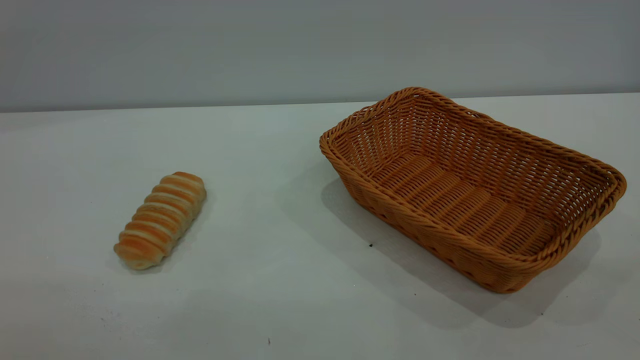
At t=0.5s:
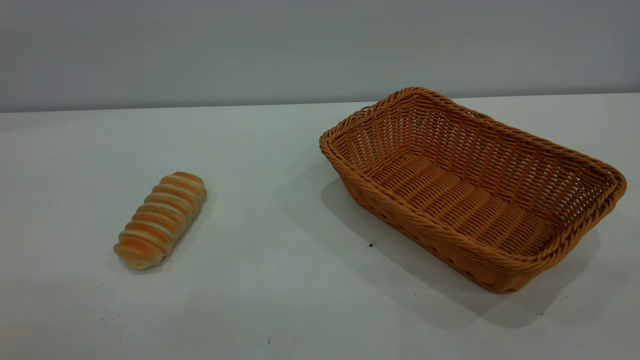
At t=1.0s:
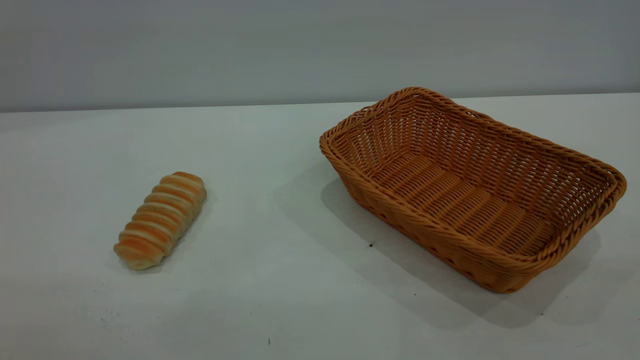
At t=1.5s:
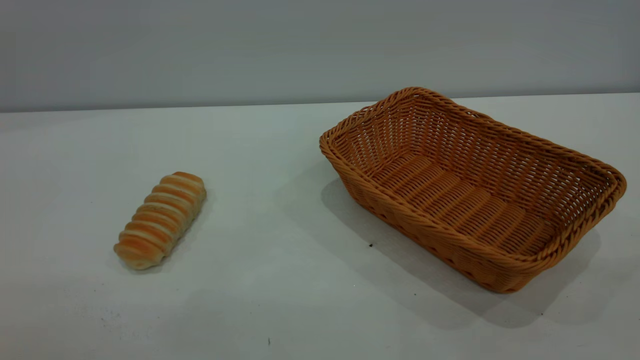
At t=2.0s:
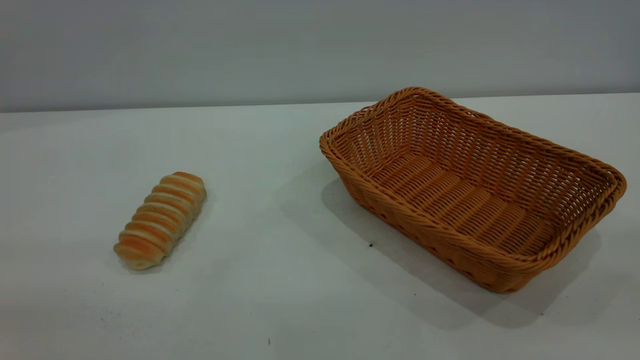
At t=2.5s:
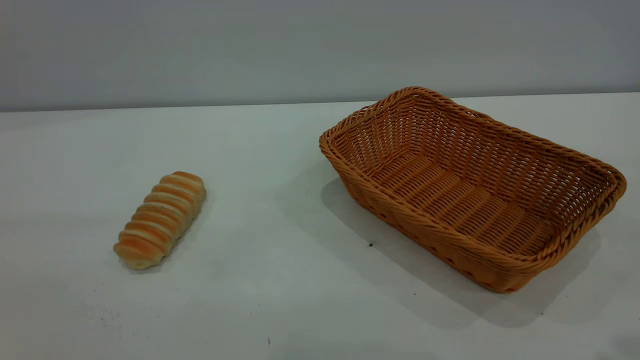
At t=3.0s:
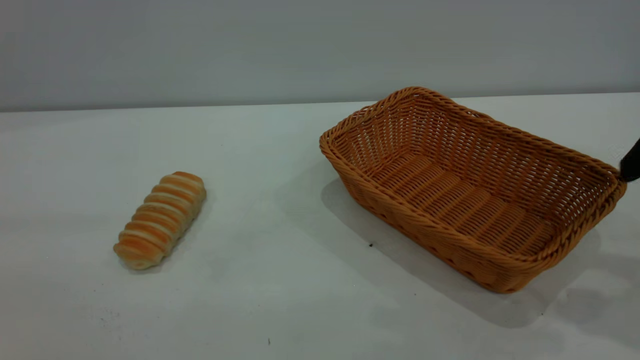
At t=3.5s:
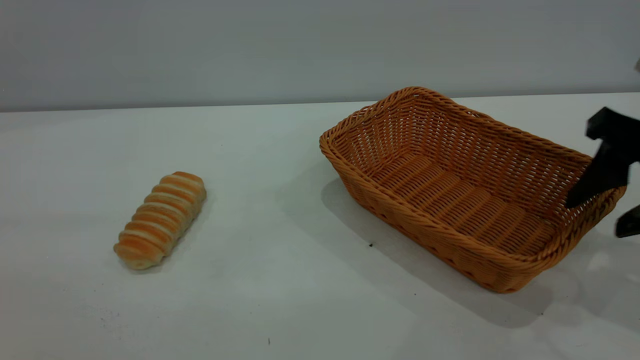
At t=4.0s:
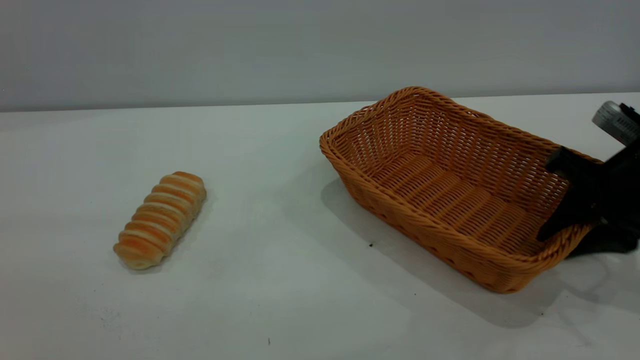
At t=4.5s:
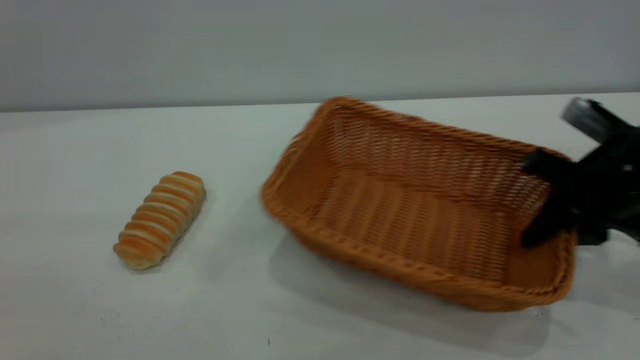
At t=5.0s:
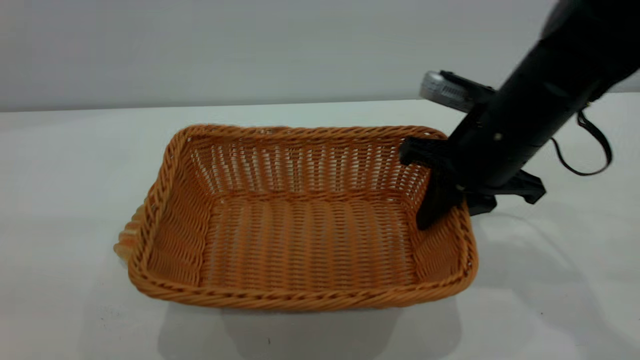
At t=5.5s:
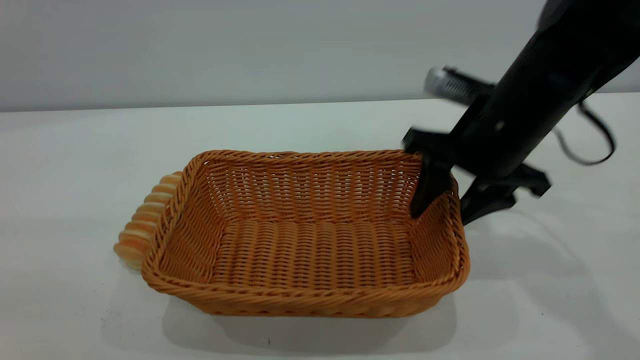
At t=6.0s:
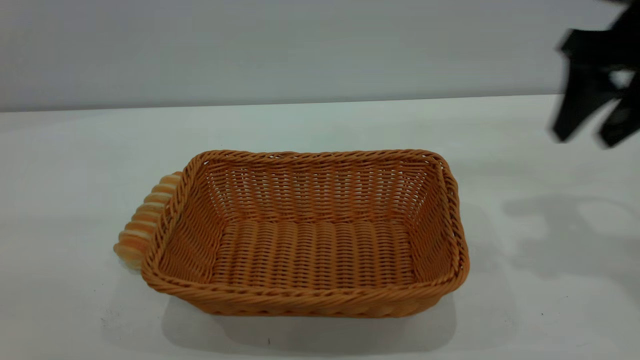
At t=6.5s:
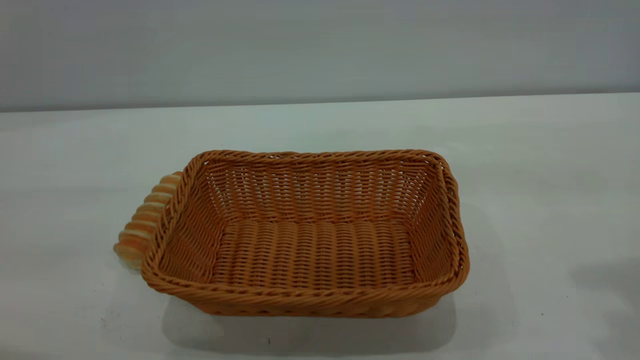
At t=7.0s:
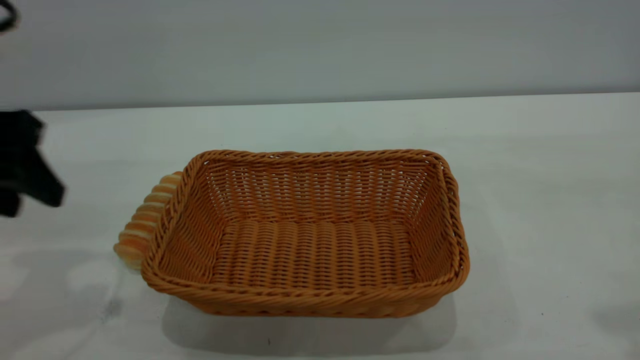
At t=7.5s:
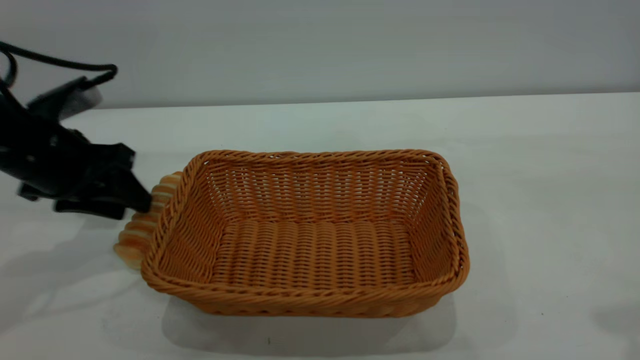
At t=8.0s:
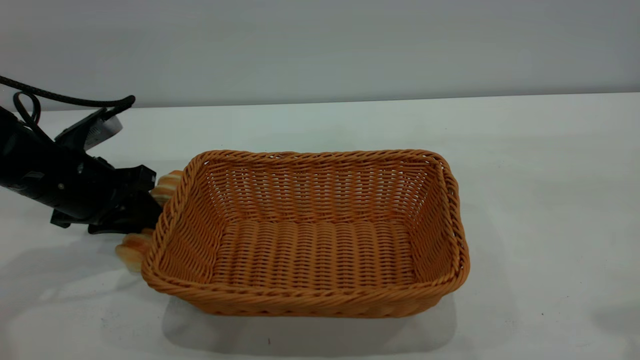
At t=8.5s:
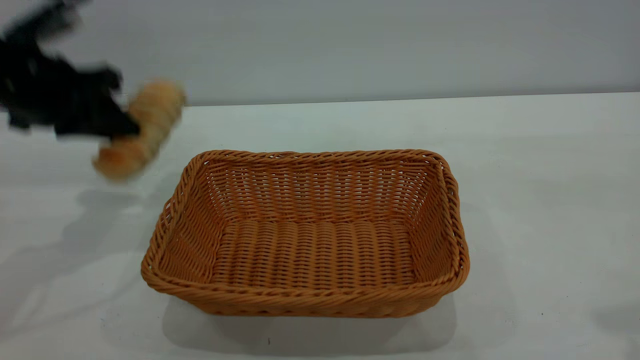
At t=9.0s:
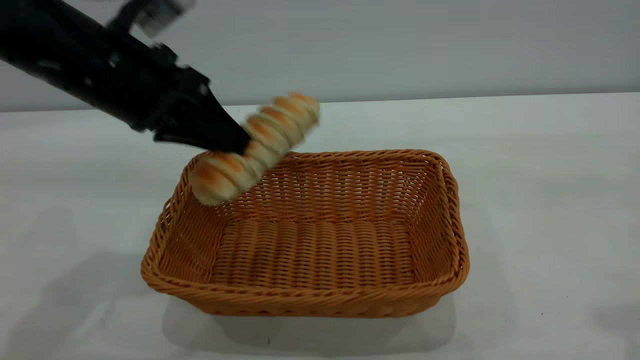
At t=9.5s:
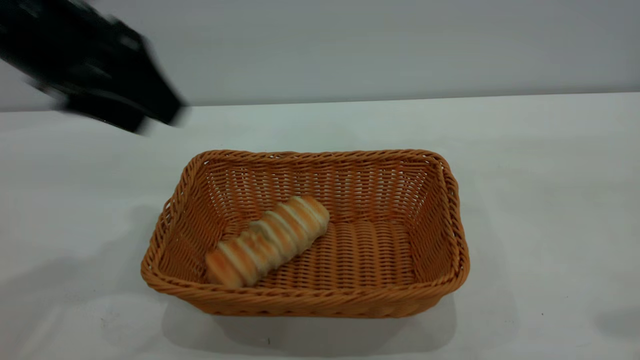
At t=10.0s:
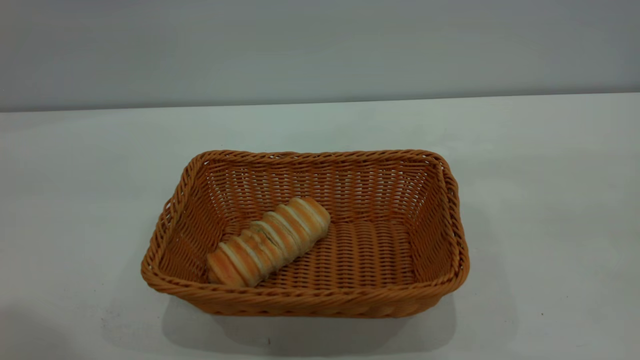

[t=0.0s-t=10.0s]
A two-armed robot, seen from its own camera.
Task of the whole recording: One hand grasps the yellow basket and places it in the middle of the table, while the other hand picks up the long bread and puts it into the yellow basket.
Step, t=0.0s to t=5.5s: Move the basket to the center of view.
Step, t=8.5s to t=9.0s: place the bread into the basket.
t=2.0s to t=4.0s: The right gripper moves forward and downward, some 40 cm, and closes its fingers.
t=4.0s to t=6.0s: The right gripper goes roughly 15 cm upward, and opens.
t=6.0s to t=8.0s: The left gripper heads forward and downward, covering some 40 cm, and closes. Meanwhile the right gripper heads backward and upward, covering some 20 cm.
t=8.0s to t=10.0s: The left gripper travels upward and backward by roughly 40 cm, and opens its fingers. The right gripper is displaced backward by about 5 cm.

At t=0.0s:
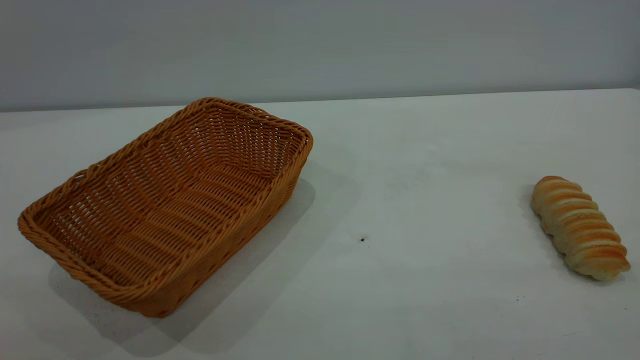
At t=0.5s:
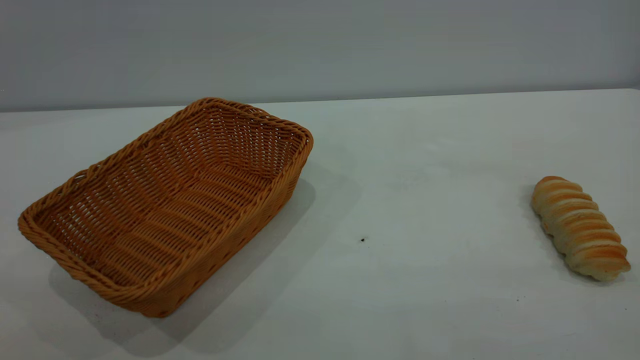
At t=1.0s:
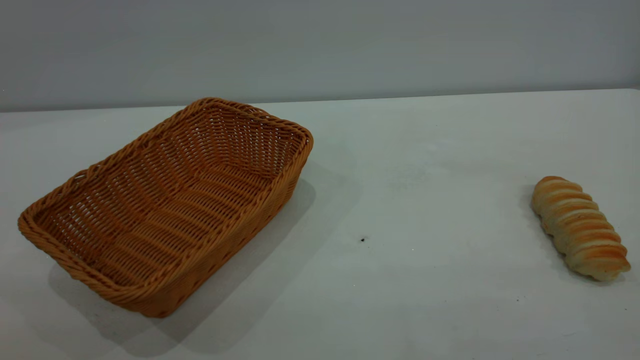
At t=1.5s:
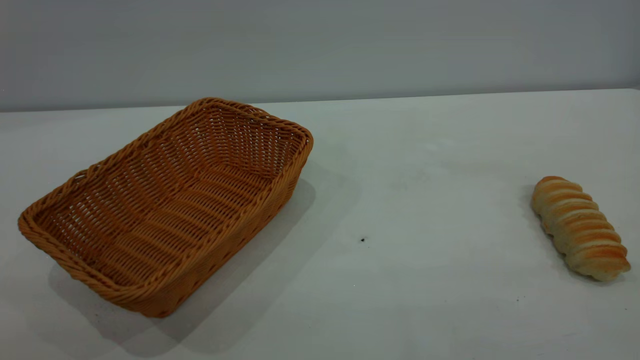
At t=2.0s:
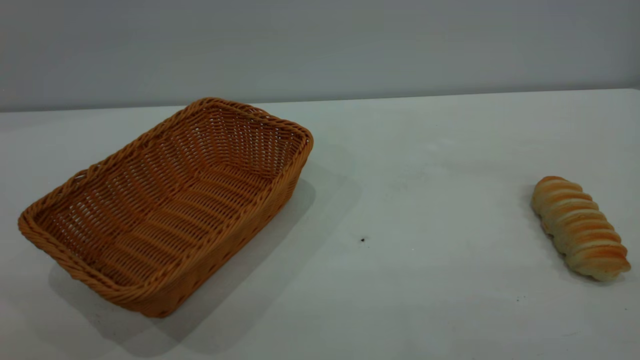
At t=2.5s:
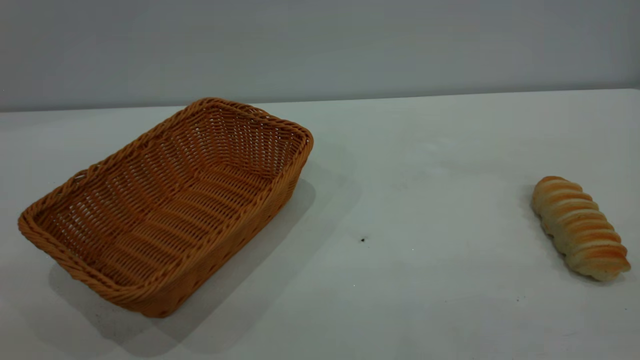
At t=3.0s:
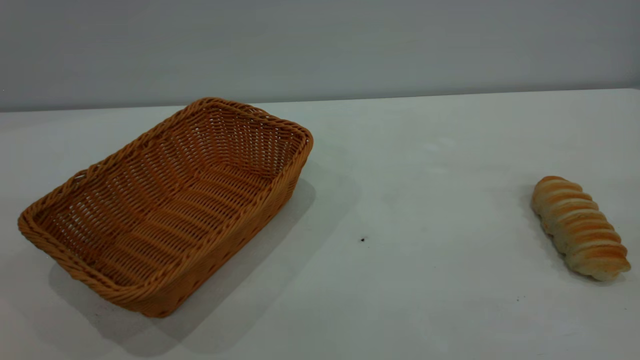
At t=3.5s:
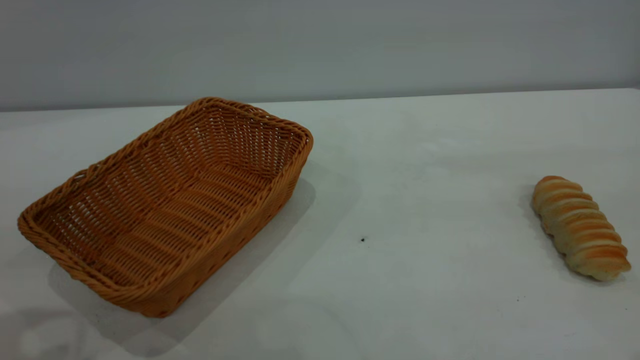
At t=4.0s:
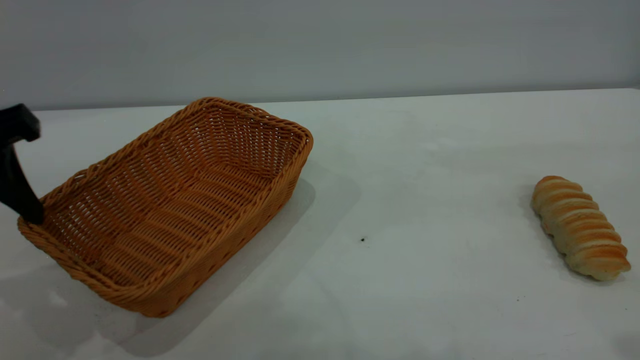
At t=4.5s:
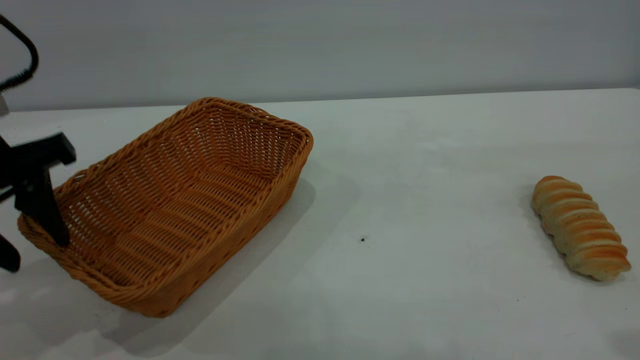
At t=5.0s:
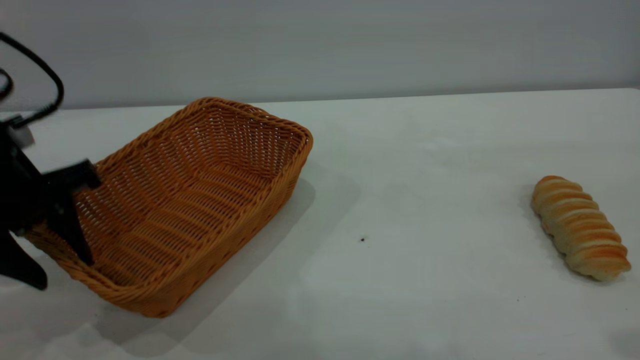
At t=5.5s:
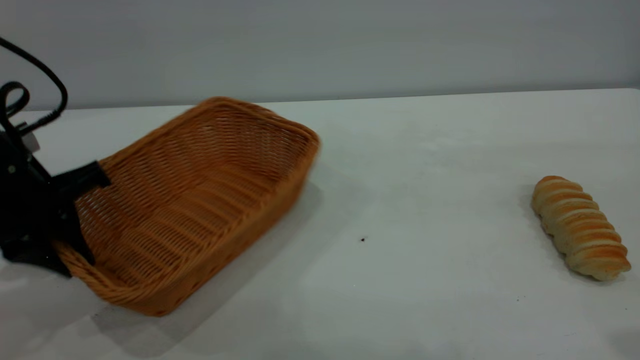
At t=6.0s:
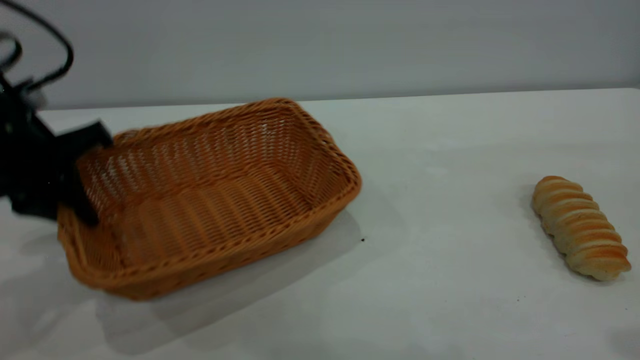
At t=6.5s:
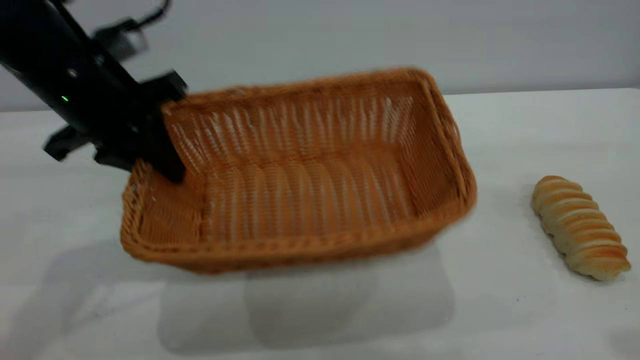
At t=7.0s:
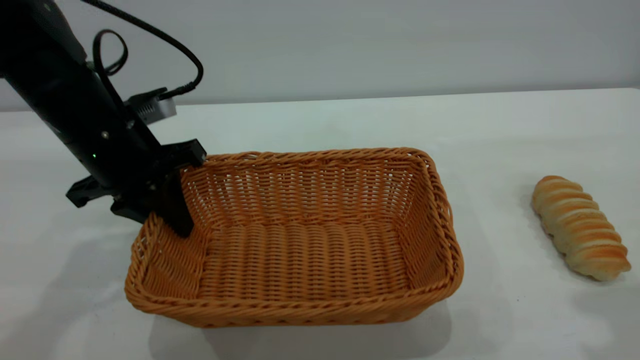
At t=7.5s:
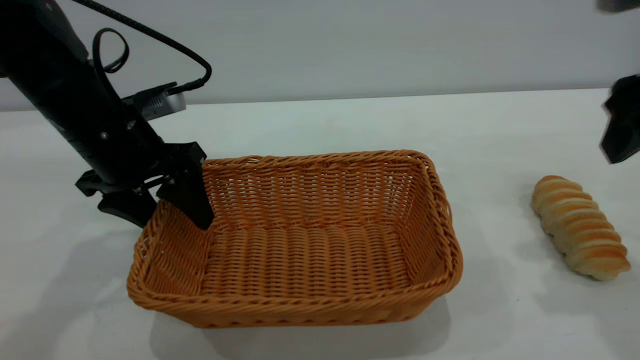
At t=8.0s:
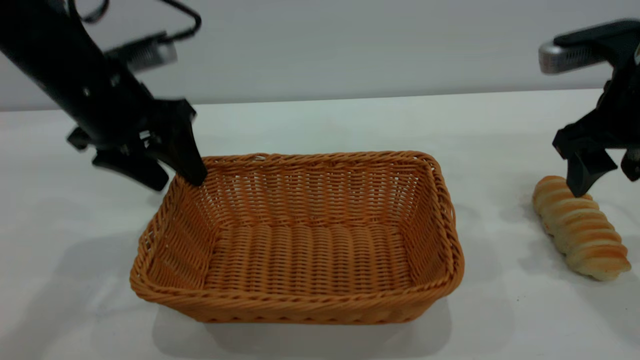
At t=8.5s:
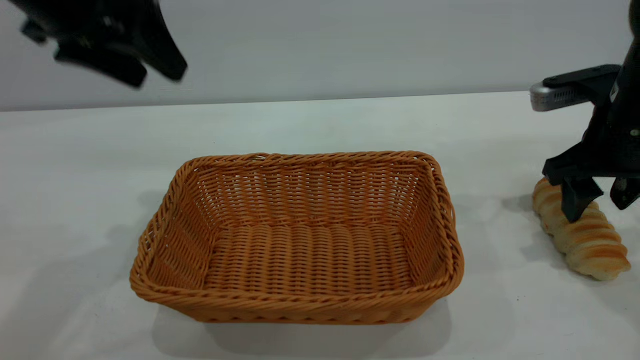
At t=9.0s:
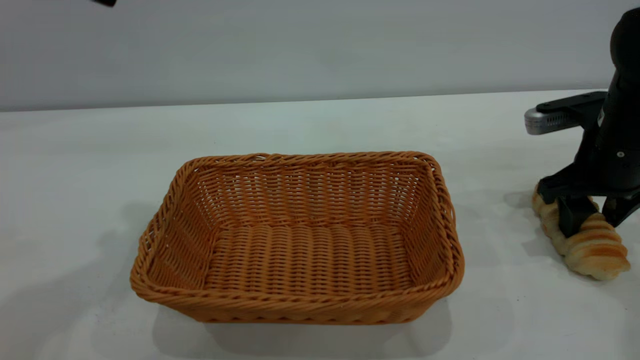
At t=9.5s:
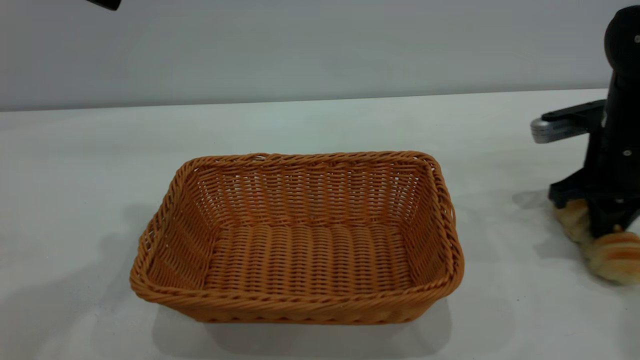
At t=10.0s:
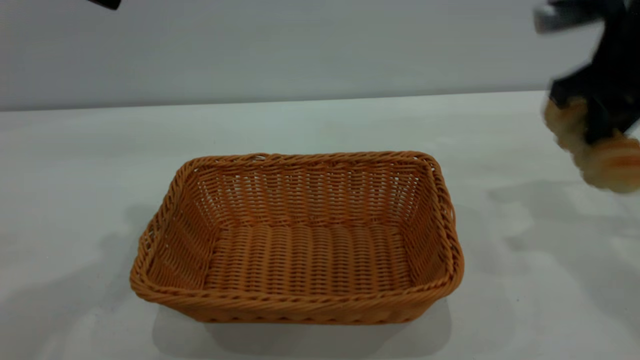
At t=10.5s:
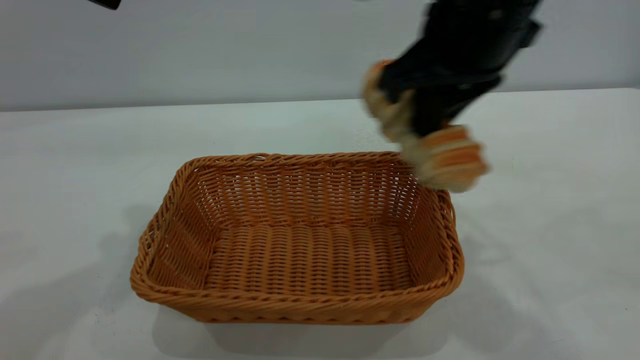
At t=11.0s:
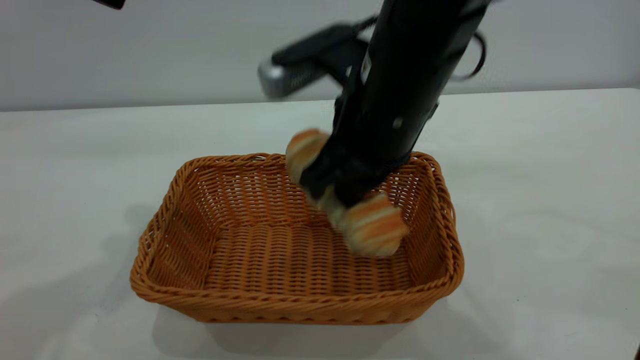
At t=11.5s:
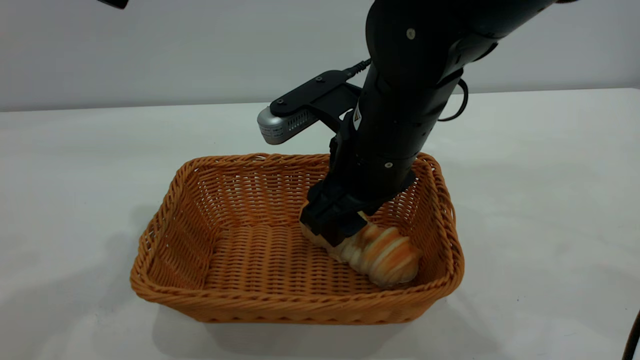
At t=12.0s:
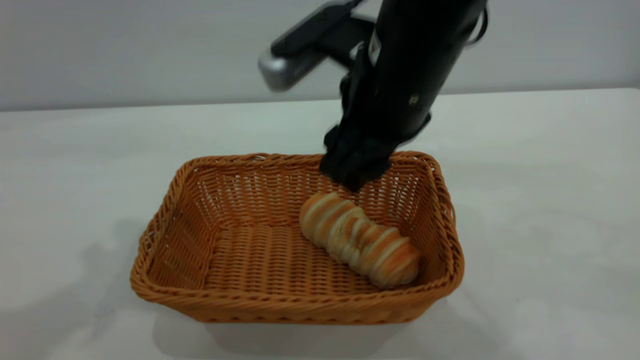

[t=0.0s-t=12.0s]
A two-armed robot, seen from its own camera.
Task of the whole recording: One hand grasps the yellow basket and places it in the middle of the table, while the other hand picks up the long bread and puts it into the yellow basket.
Step, t=0.0s to t=8.0s: Move the basket to the center of view.
t=0.0s to t=2.0s: Neither gripper changes place.
t=2.0s to t=4.0s: The left gripper goes approximately 25 cm forward.
t=4.0s to t=6.0s: The left gripper heads forward, covering about 5 cm, and closes up.
t=6.0s to t=8.0s: The left gripper is displaced to the right by roughly 5 cm, and opens up. The right gripper shifts about 25 cm forward and downward, and opens up.
t=8.0s to t=10.0s: The right gripper shifts by about 5 cm, and closes, while the left gripper shifts approximately 15 cm upward.
t=10.0s to t=12.0s: The right gripper travels to the left by some 20 cm, and opens up.
